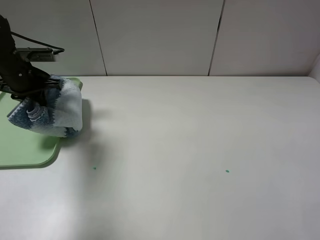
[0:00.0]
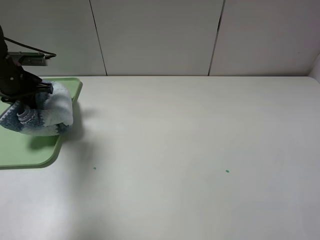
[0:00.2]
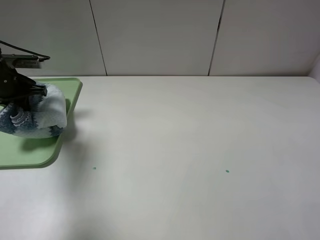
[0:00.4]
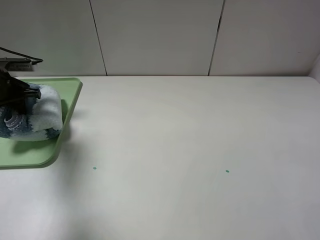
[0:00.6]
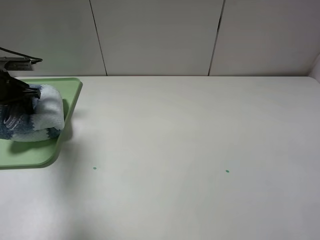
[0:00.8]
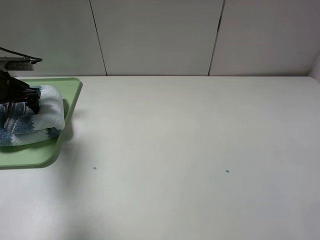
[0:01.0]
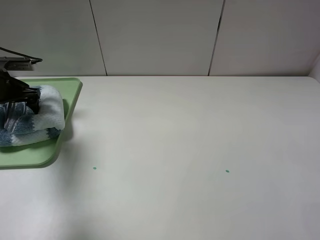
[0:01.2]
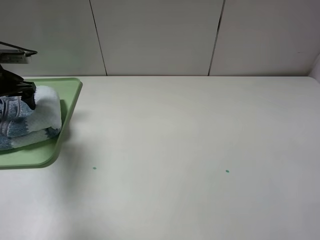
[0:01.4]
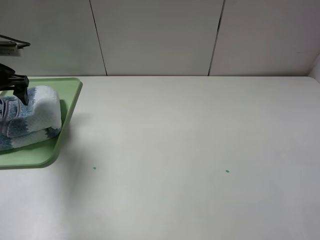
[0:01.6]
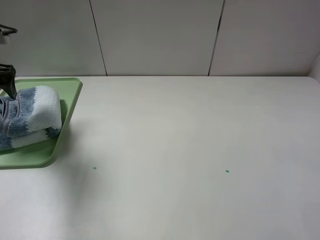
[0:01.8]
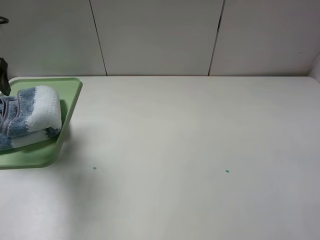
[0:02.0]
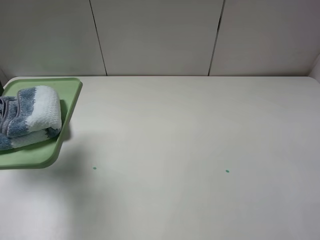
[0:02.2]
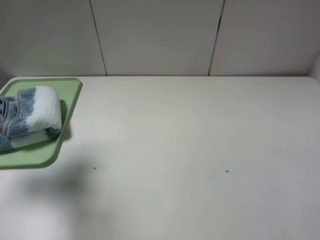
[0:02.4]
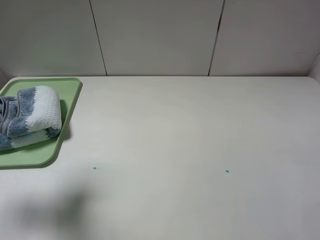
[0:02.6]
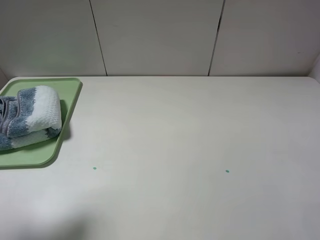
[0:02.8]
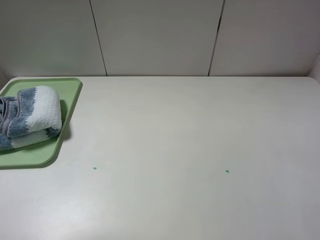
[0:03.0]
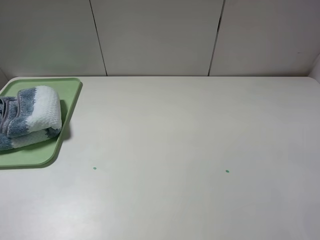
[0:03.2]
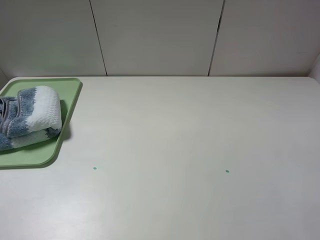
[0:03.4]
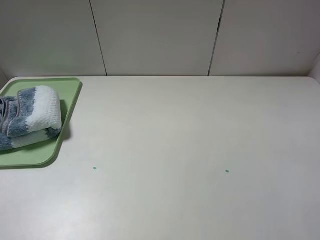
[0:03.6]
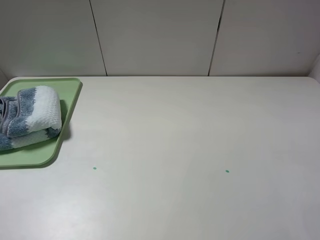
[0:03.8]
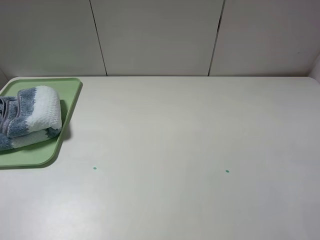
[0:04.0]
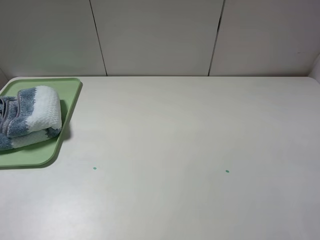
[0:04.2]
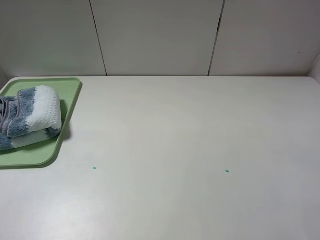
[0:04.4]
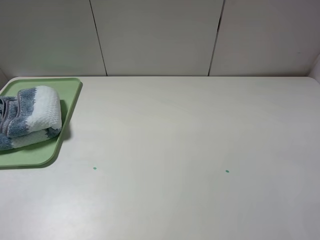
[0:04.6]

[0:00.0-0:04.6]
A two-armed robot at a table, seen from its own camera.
0:00.0 to 0:01.6: The left gripper moves to the left, roughly 5 cm, and opens.
0:01.6 to 0:03.0: The left gripper shifts about 35 cm backward and upward.
